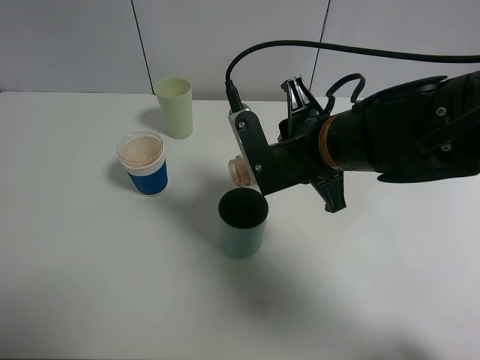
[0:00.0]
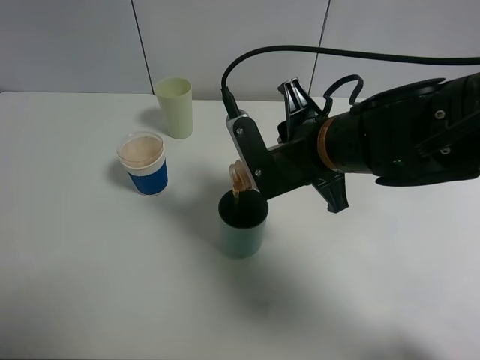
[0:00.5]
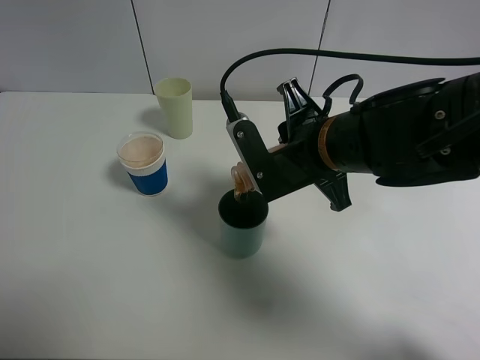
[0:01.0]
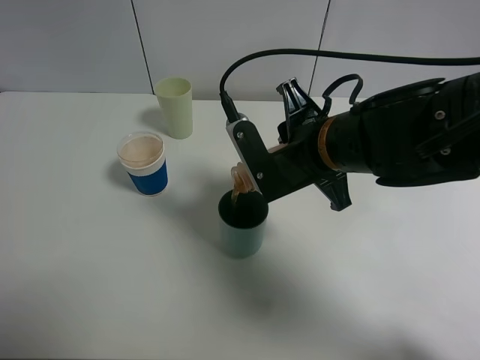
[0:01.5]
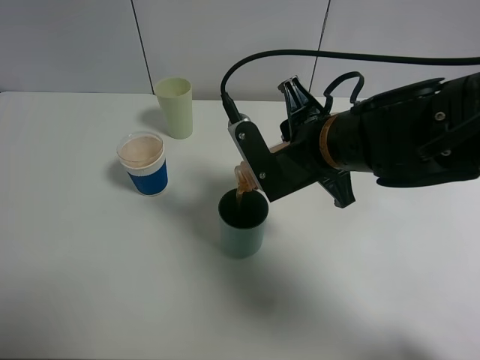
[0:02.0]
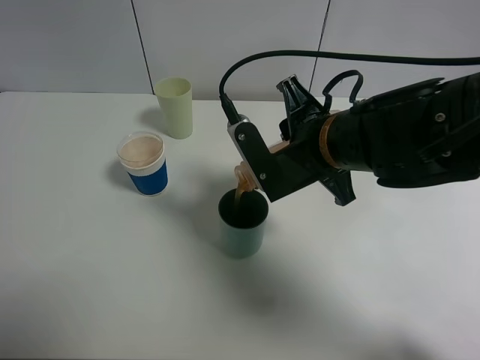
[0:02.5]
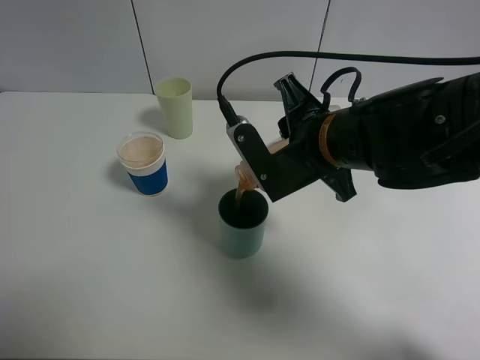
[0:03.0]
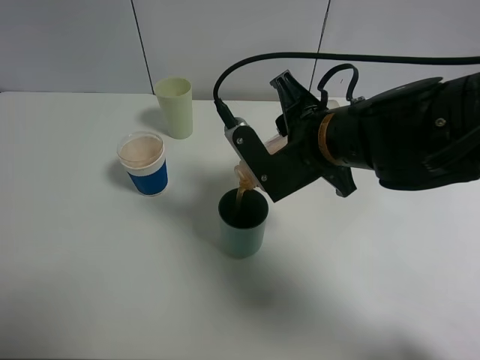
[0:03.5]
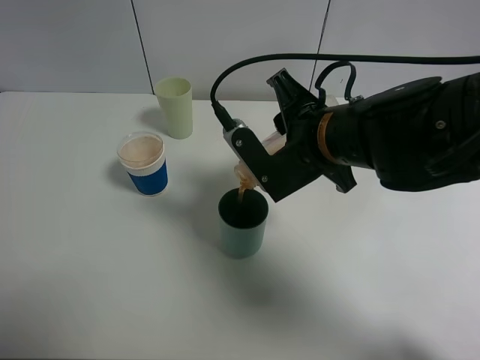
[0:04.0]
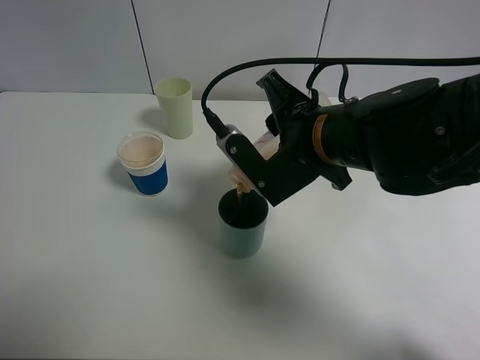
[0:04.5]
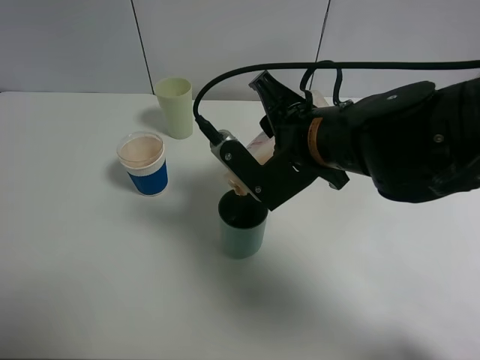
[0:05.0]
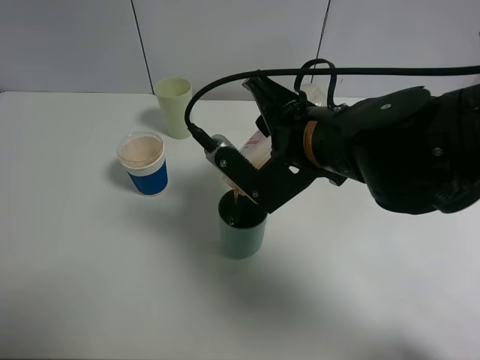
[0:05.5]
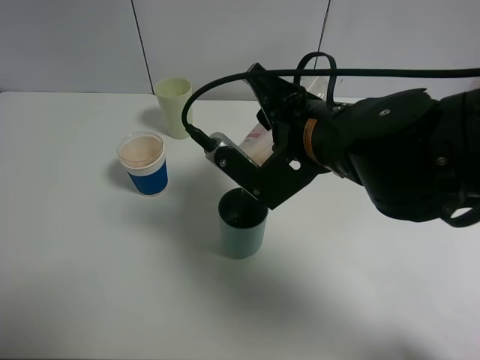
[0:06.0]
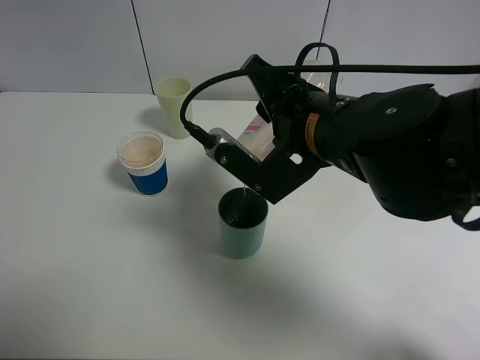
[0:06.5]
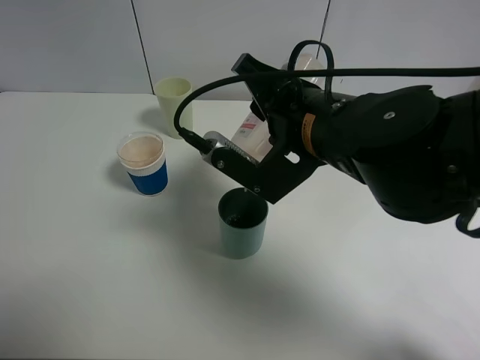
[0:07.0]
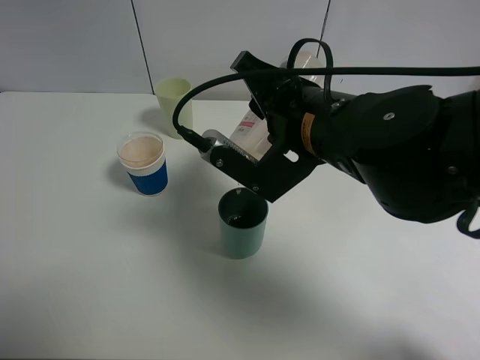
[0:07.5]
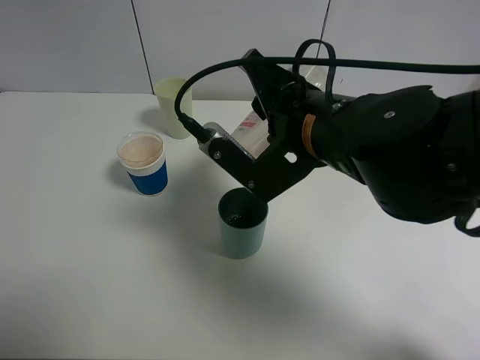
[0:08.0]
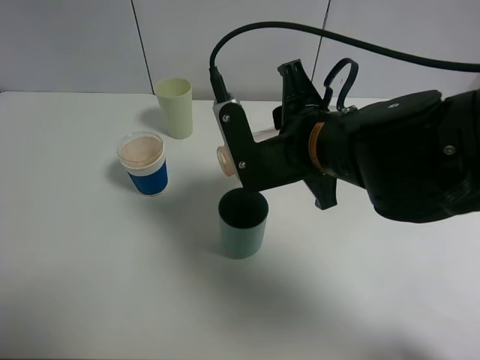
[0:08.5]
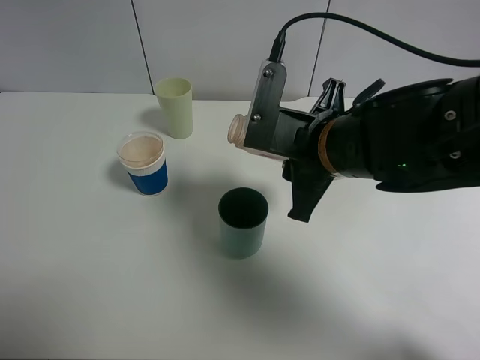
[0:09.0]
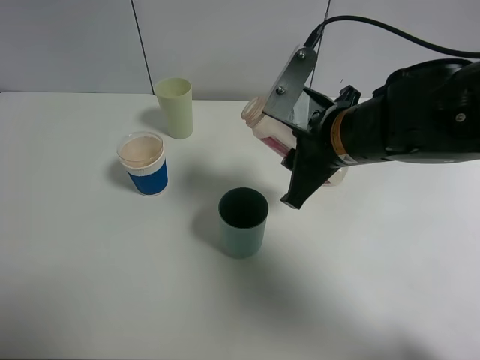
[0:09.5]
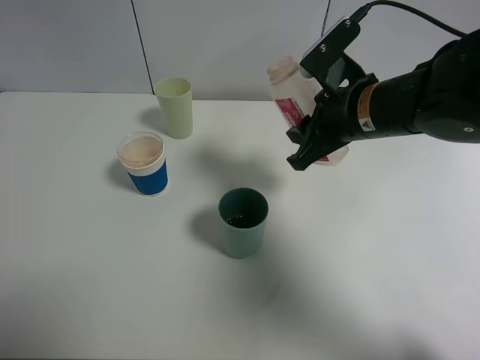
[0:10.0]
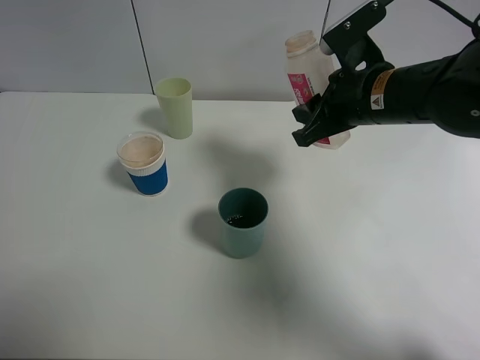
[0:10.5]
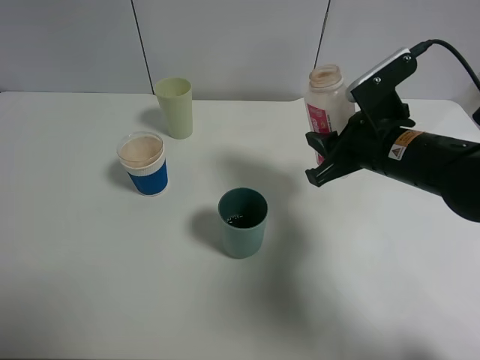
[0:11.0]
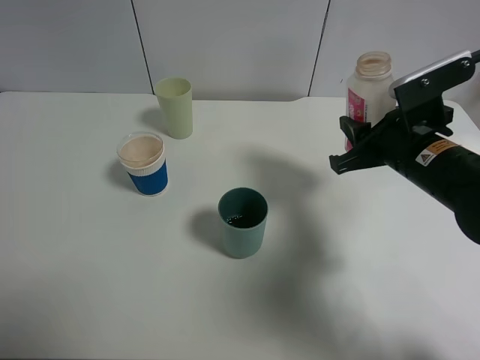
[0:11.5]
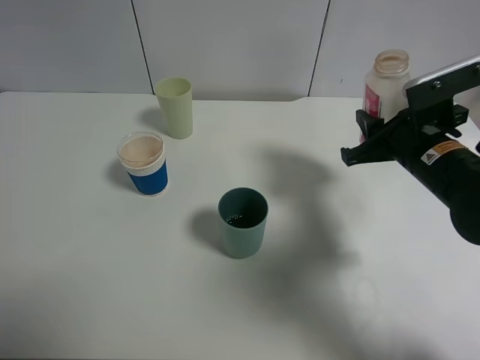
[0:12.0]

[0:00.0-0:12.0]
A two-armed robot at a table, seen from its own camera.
Task of the whole recording: use a clamp to hold the bottle of the drink, pour the beverage into a random cup, then clamp the cup containing the drink and pour the drink into another random cup.
Step, 0:00.0 to 0:08.5: Pour the drink into the blue plastic cup with right gripper.
0:00.0 to 0:04.0: The grippers make only small movements.
0:04.0 to 0:06.0: The grippers make only small movements.
0:06.0 to 0:08.0: The grippers move only a little.
0:08.0 to 0:10.0: The right gripper is displaced to the right and forward by roughly 10 cm.
0:10.0 to 0:12.0: The right gripper shifts roughly 10 cm to the right and downward.

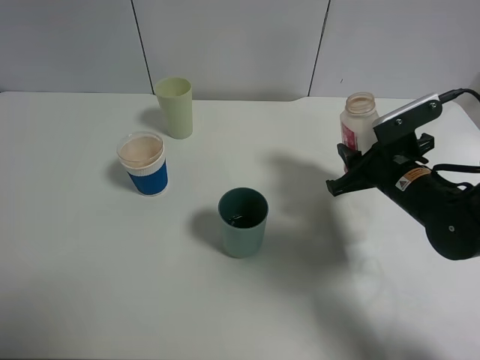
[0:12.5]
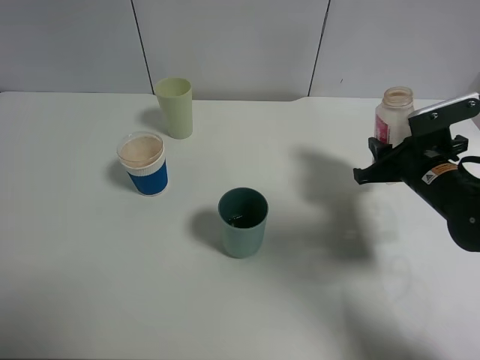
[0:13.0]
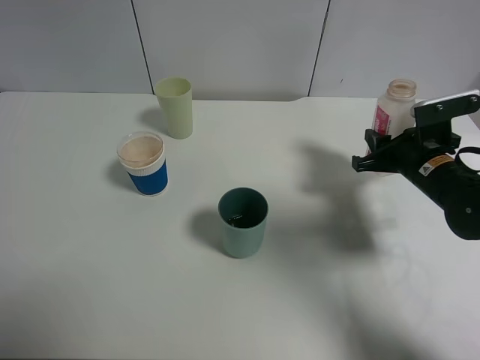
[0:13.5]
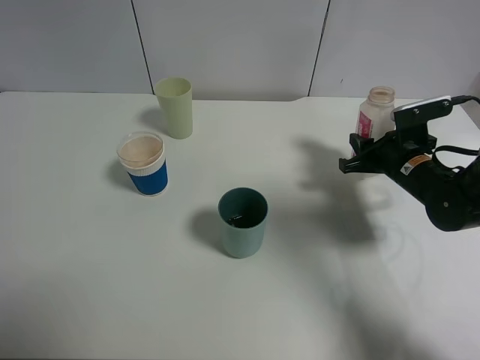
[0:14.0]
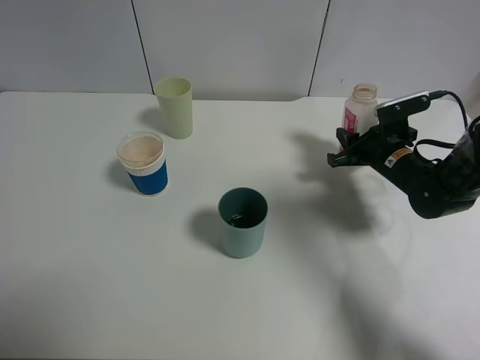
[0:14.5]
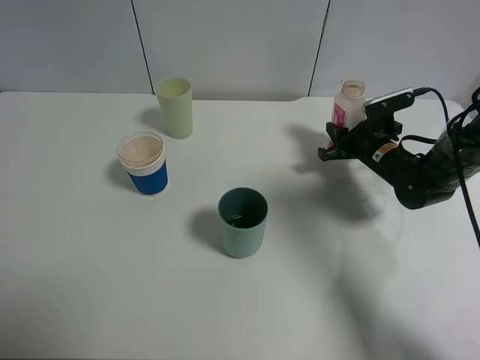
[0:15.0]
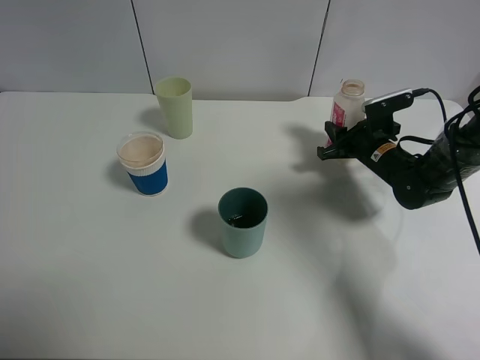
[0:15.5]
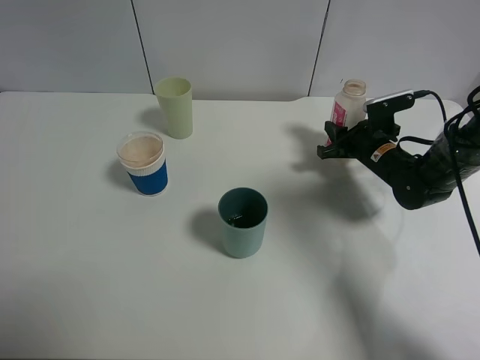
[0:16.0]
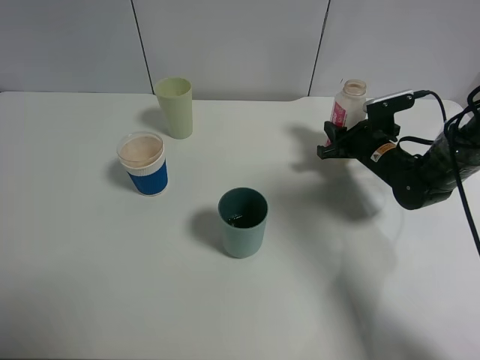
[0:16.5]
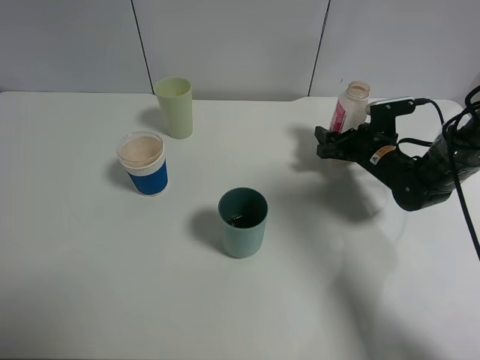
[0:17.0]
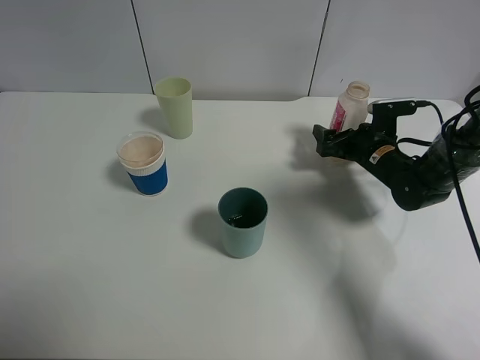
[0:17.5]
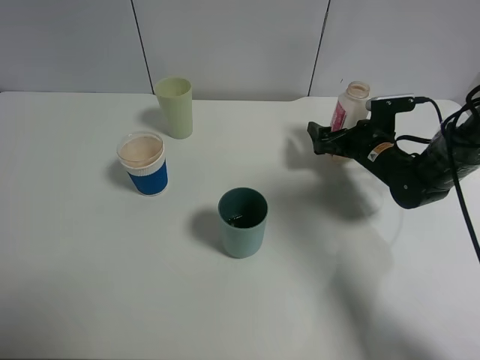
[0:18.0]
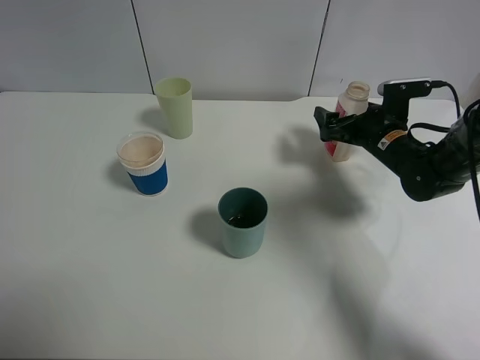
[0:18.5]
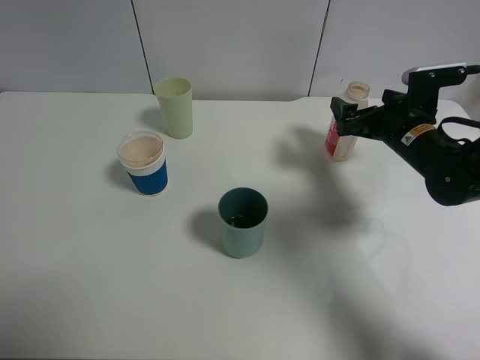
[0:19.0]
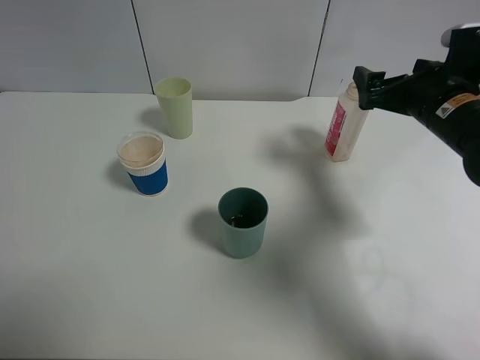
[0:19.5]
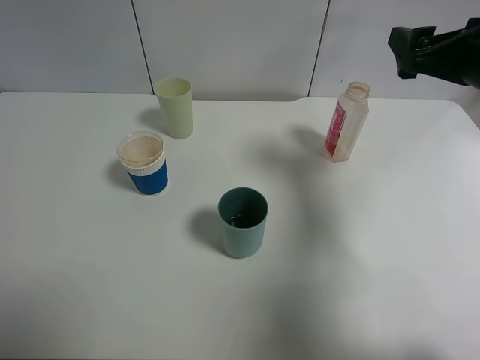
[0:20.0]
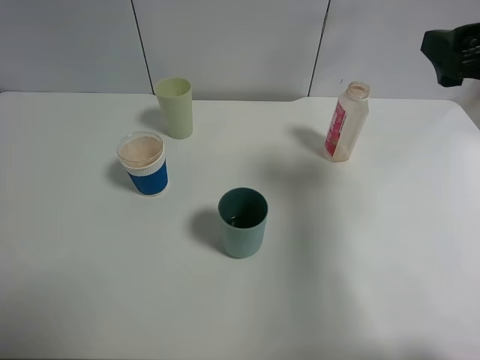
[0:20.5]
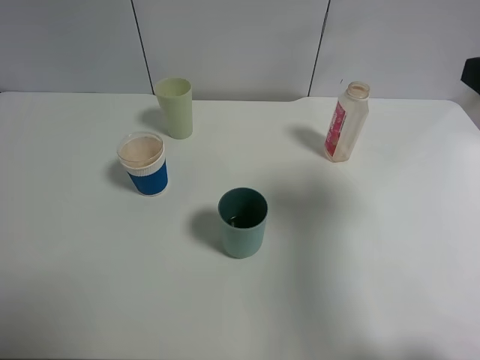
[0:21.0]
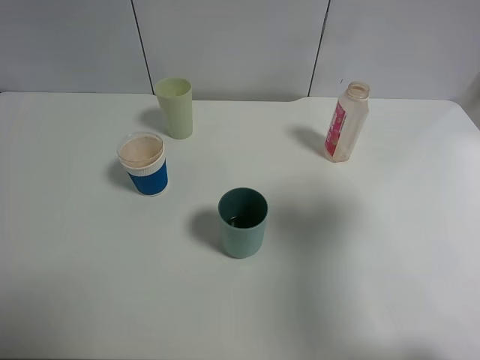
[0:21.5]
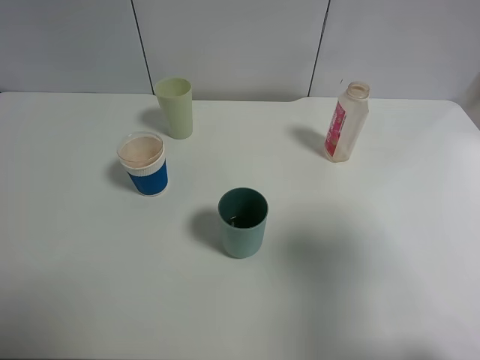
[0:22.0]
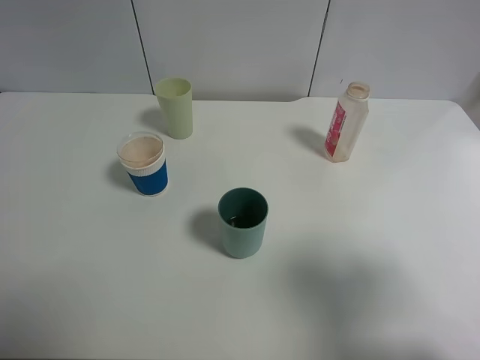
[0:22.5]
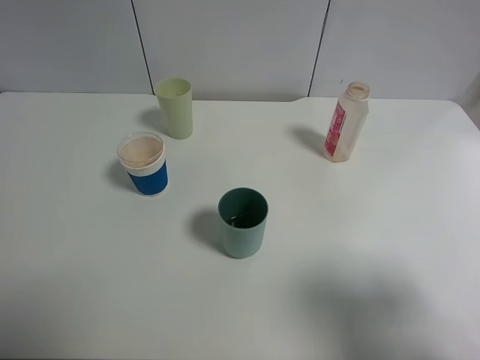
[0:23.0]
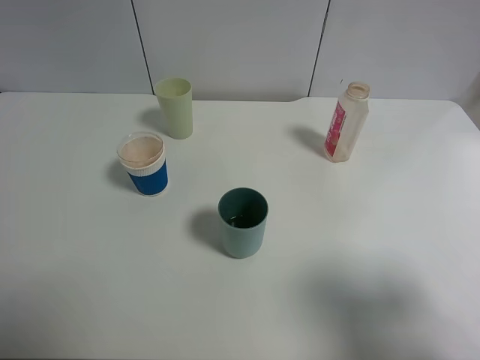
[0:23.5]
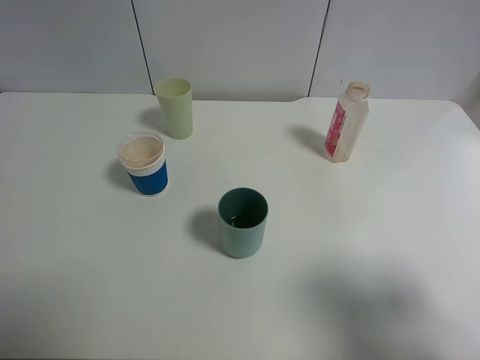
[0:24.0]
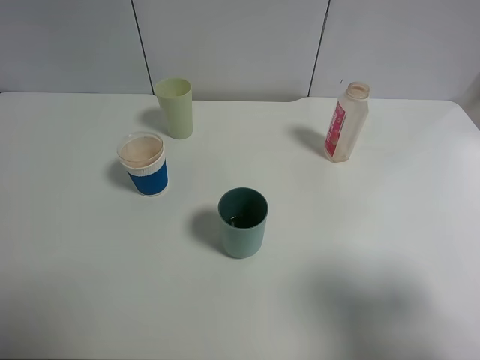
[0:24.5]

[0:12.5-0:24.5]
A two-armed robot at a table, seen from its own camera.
Task of the whole recording: use a clamp to hold the bottle of the drink, pour the beverage into a random cup, then clamp the cup containing the drink and pour the drink into another random cup.
Step, 0:12.5 to 0:17.5: Place the drink bottle on the table with right gripper.
0:12.5 to 0:14.5: The right gripper heads forward, covering approximately 10 cm.
0:14.5 to 0:16.5: There are only small adjustments of the grippers.
0:16.5 to 0:18.5: The right gripper opens up.
0:18.5 to 0:20.5: The right gripper travels upward and backward by approximately 25 cm.
0:20.5 to 0:22.5: The right gripper goes roughly 20 cm backward.
0:22.5 to 0:24.5: The grippers make only small movements.

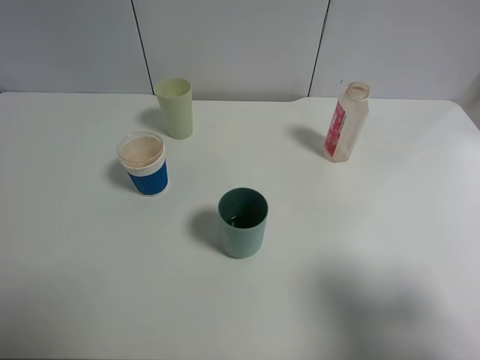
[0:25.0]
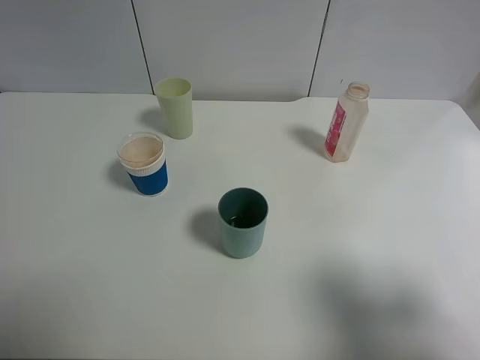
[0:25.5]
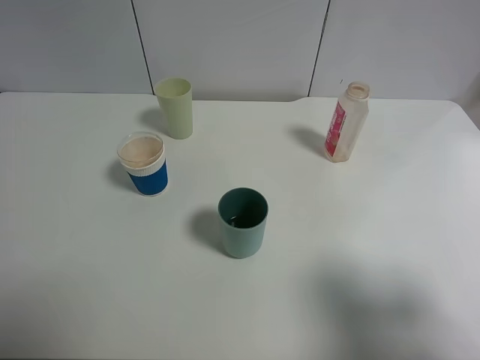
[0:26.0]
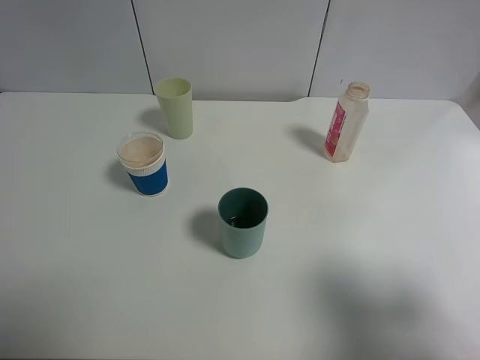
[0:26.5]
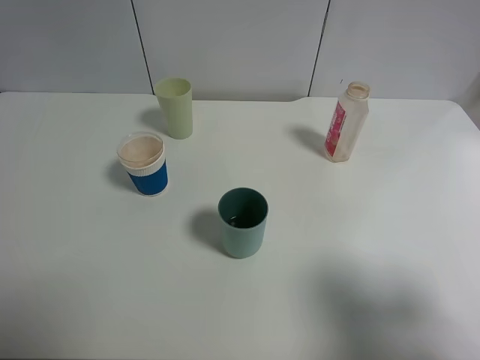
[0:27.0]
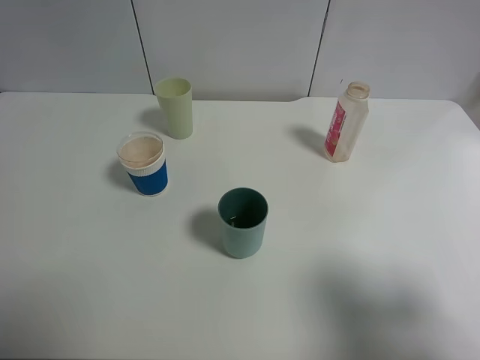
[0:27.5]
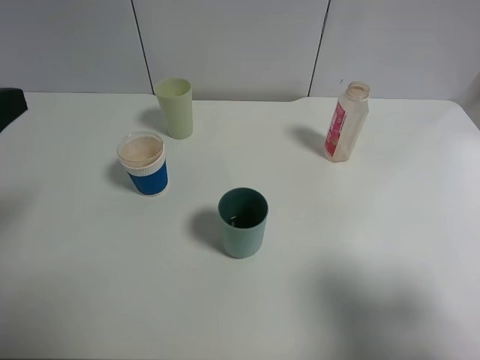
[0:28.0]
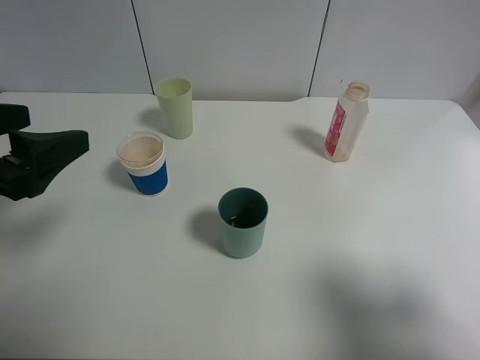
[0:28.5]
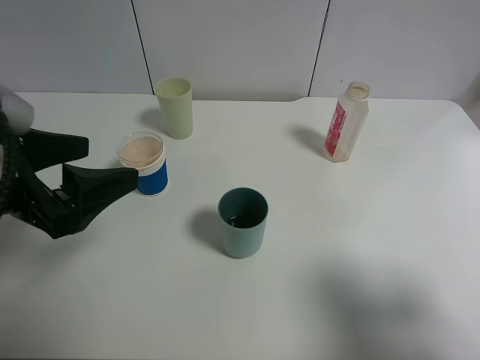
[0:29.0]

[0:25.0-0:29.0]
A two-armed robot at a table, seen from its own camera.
Task of the whole recording: use a clamp to hold the bottle of the drink, pour the beverage into a random cup, then clamp the cup containing the drink and pour the drink into another random cup.
0:27.0 to 0:29.0: The left gripper heads to the right and downward, covering about 15 cm.
